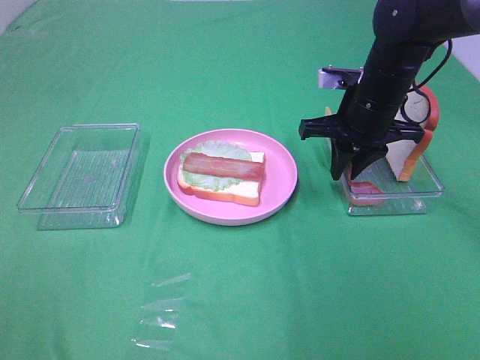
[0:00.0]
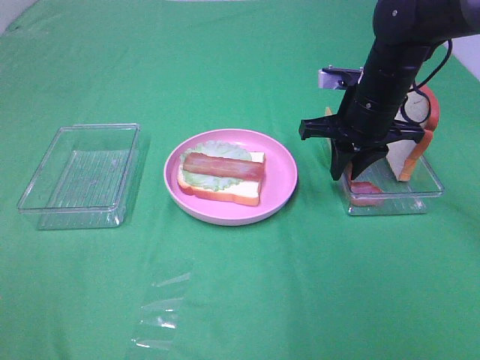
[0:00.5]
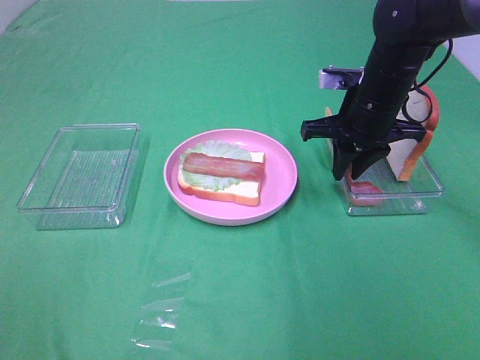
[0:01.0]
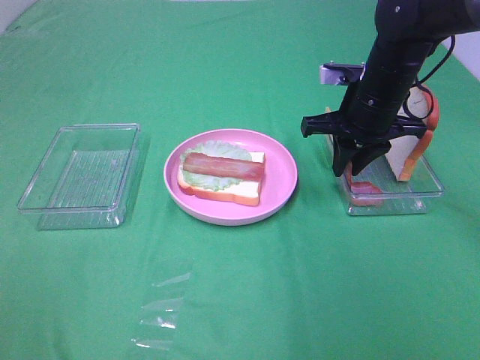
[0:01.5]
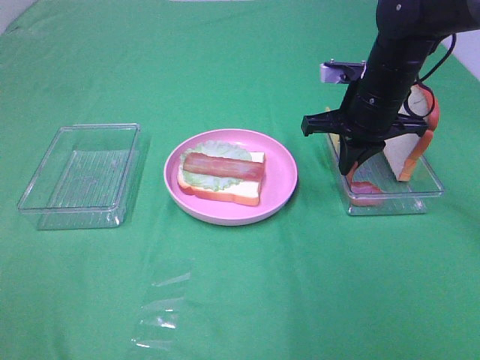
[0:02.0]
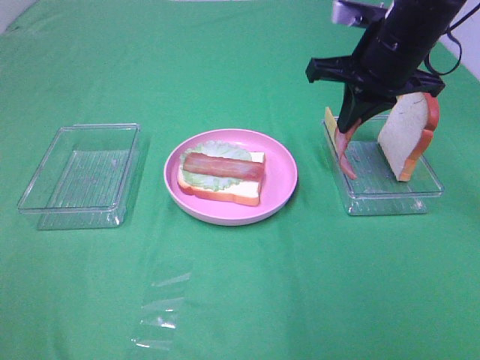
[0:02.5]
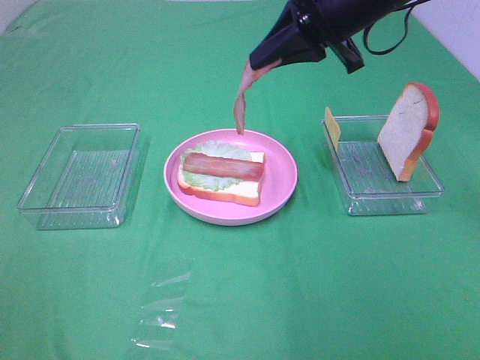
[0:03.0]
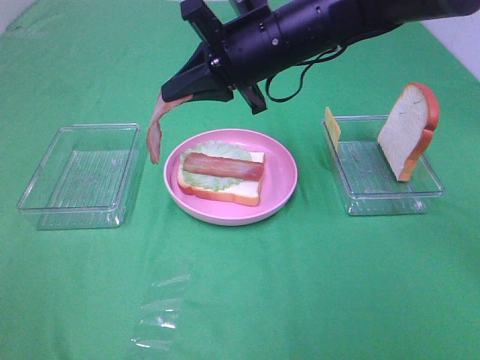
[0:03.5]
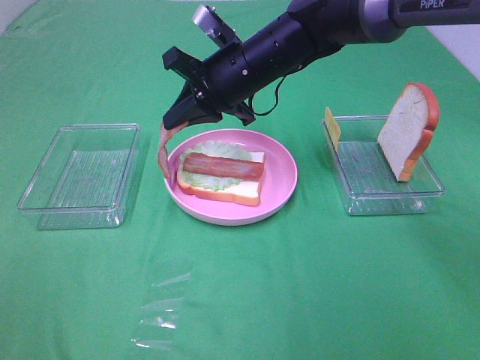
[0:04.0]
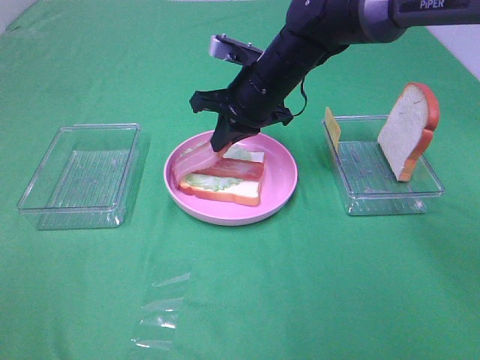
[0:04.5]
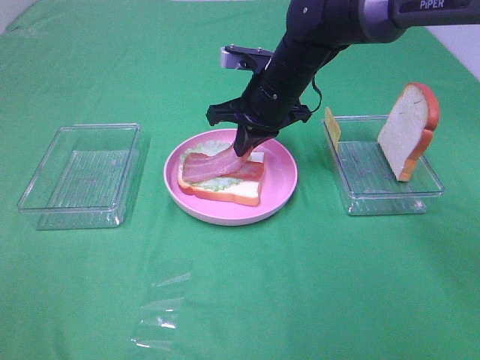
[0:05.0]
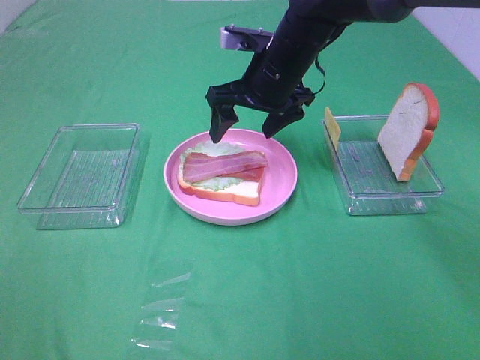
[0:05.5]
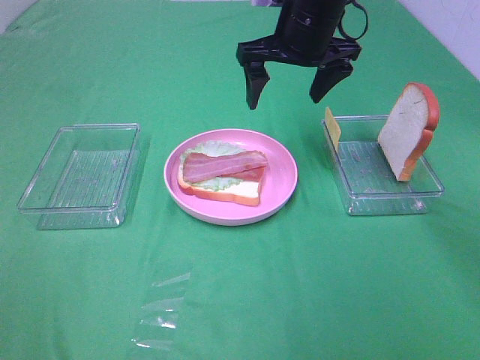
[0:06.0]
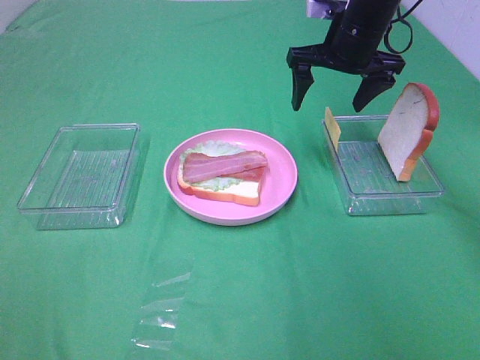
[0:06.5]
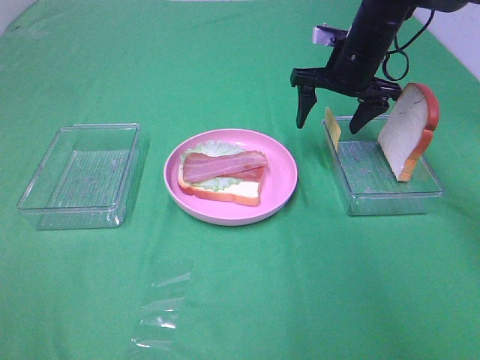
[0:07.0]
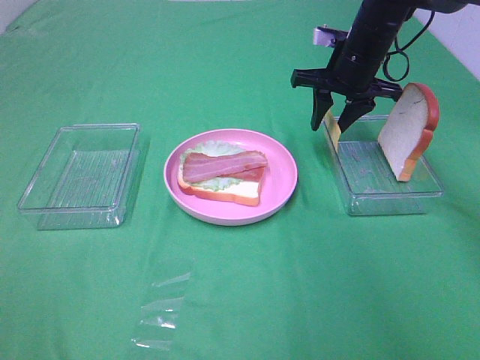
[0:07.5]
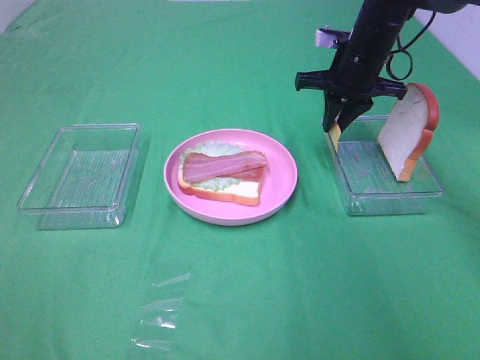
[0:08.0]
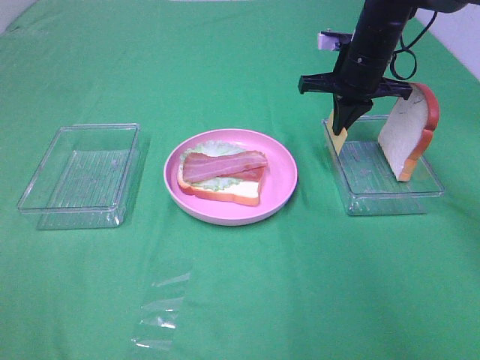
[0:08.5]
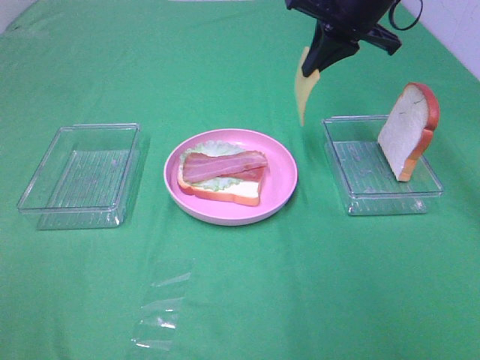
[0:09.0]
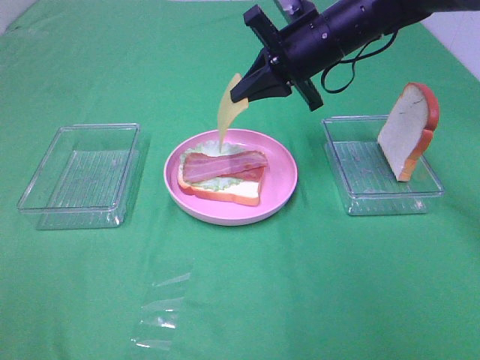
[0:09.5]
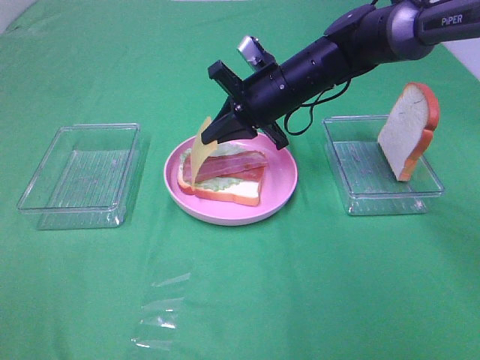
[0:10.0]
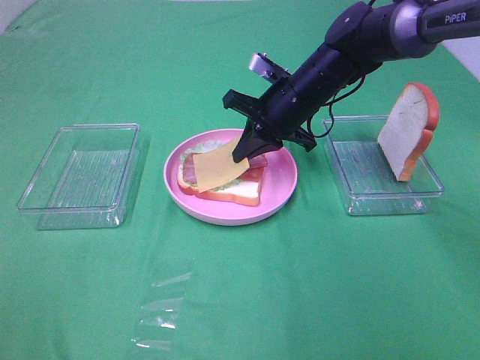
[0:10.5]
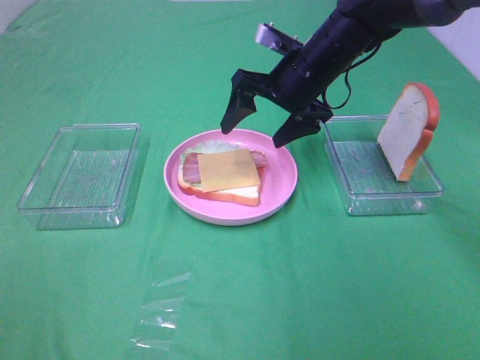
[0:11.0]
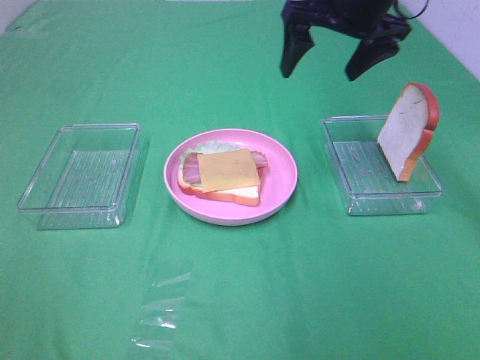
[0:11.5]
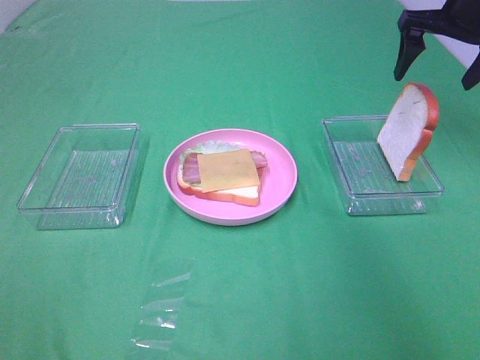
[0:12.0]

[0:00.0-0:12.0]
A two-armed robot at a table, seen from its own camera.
Task of the whole recording: Make sandwiches.
Step, 0:02.0 to 0:05.5: Right hand:place bacon on bacon.
Step, 0:06.0 to 0:08.0: Right hand:grab the cheese slice.
Step, 0:08.5 to 0:10.5: Right hand:place the cheese slice on top of the bacon.
0:00.0 to 0:02.0: Neither gripper changes place.
0:02.0 to 0:04.0: The right gripper shifts approximately 15 cm to the left.
0:04.0 to 0:06.0: The right gripper travels to the right and upward by approximately 10 cm, and opens up.
0:06.0 to 0:08.0: The right gripper is displaced to the right and downward by approximately 10 cm, and closes.
0:08.0 to 0:10.0: The right gripper shifts about 10 cm to the left and backward, and reaches roughly 10 cm upward, then returns.
0:10.0 to 0:12.0: The right gripper travels to the right and upward by about 25 cm, and opens its fingers.

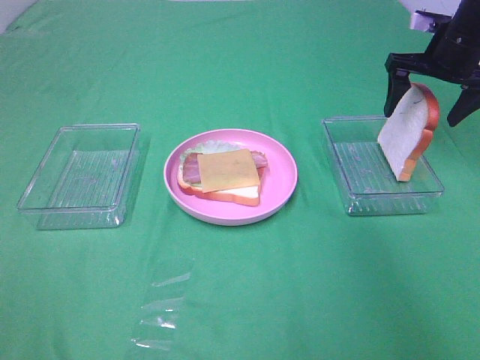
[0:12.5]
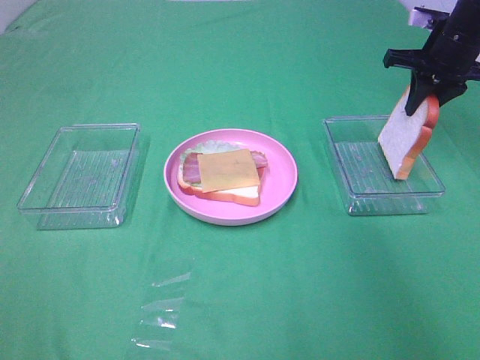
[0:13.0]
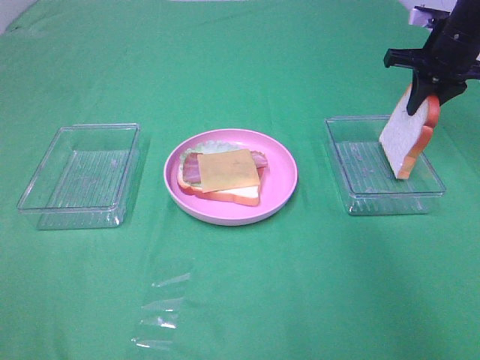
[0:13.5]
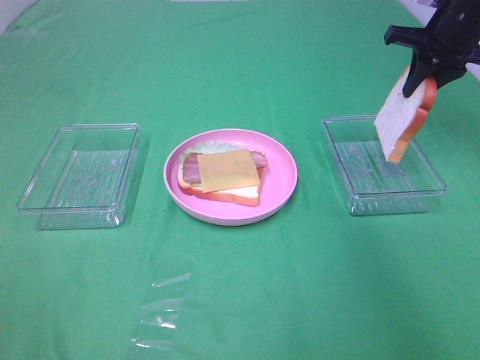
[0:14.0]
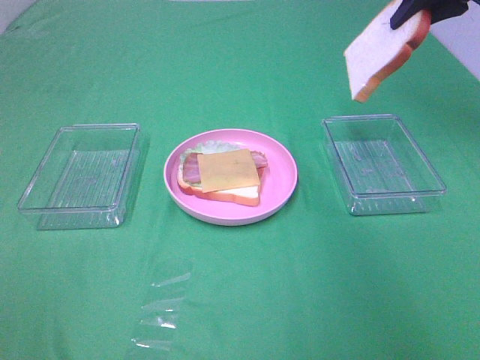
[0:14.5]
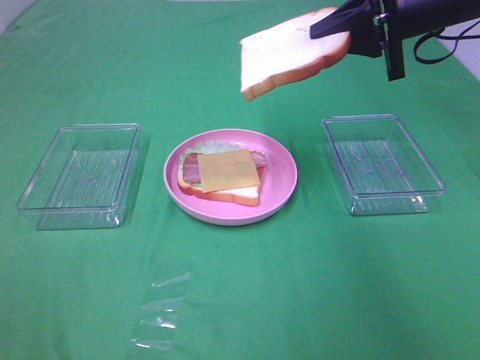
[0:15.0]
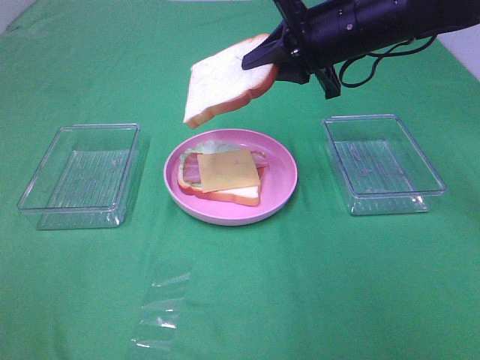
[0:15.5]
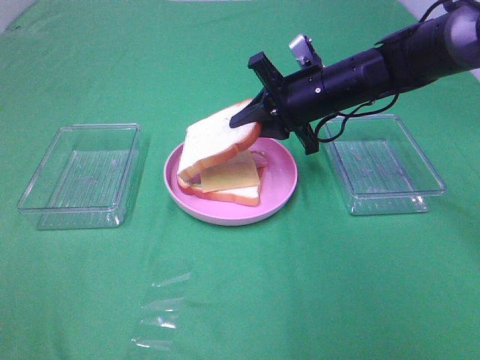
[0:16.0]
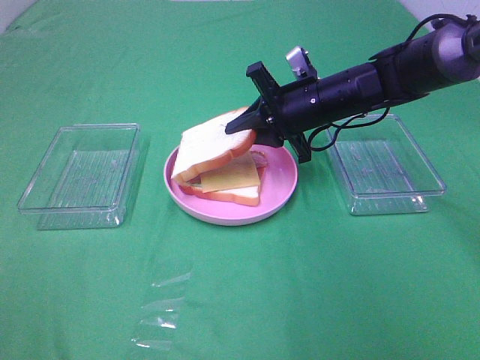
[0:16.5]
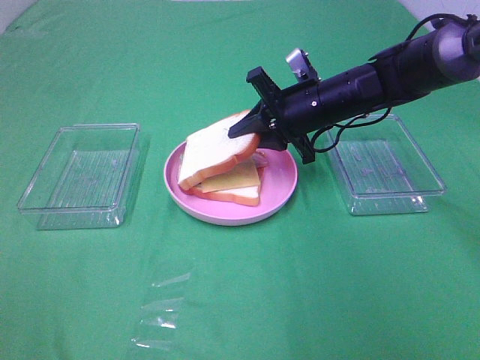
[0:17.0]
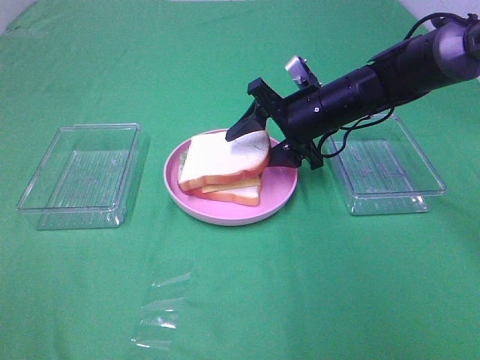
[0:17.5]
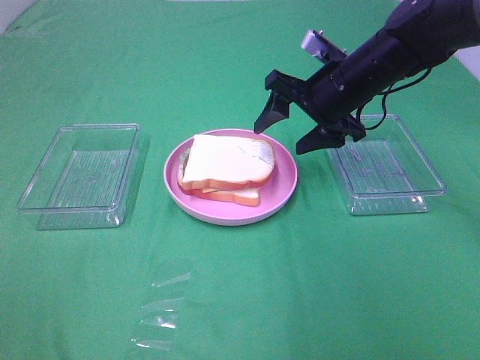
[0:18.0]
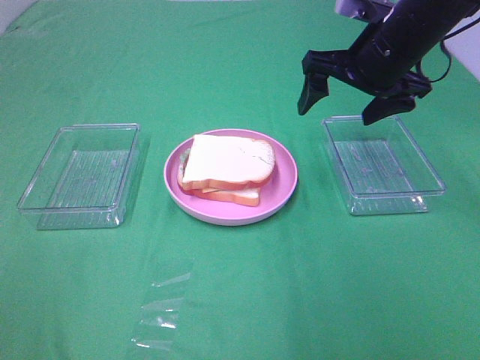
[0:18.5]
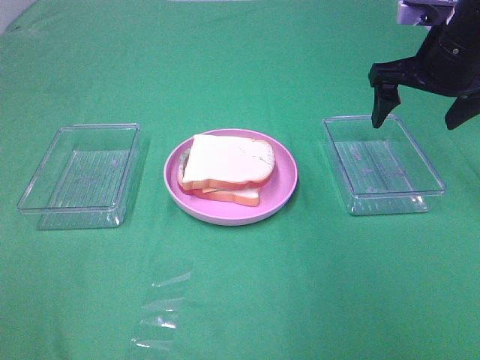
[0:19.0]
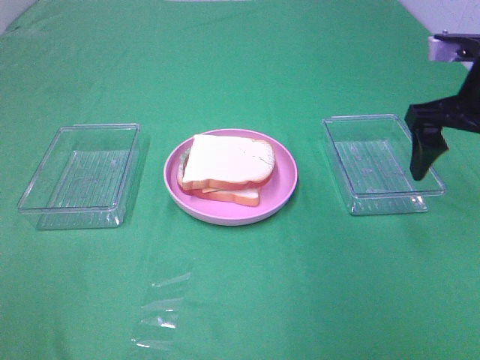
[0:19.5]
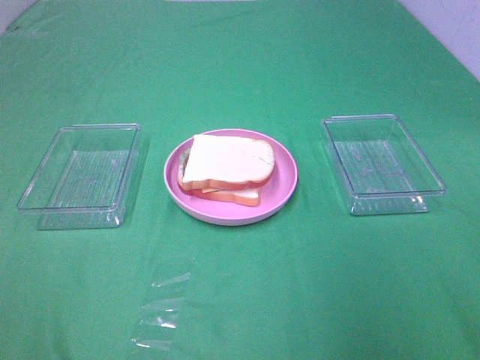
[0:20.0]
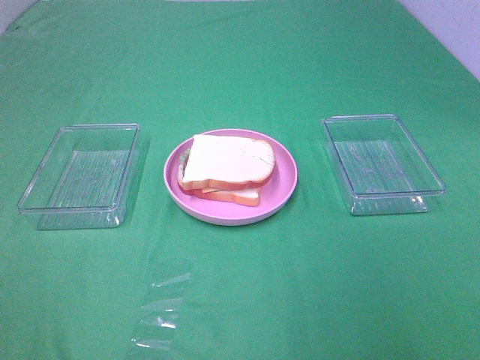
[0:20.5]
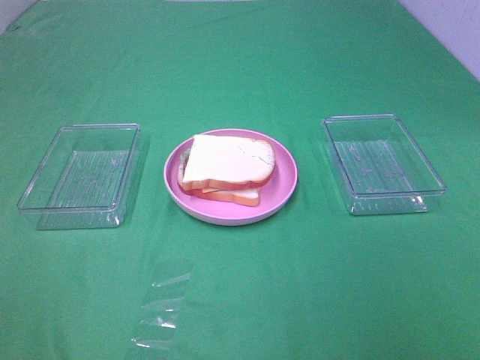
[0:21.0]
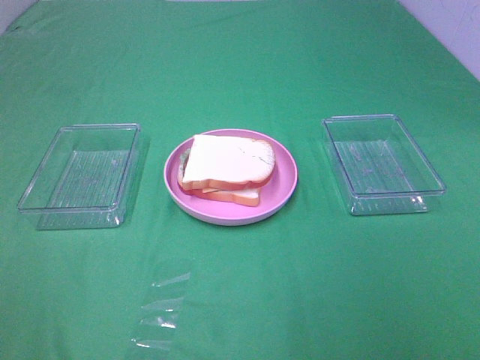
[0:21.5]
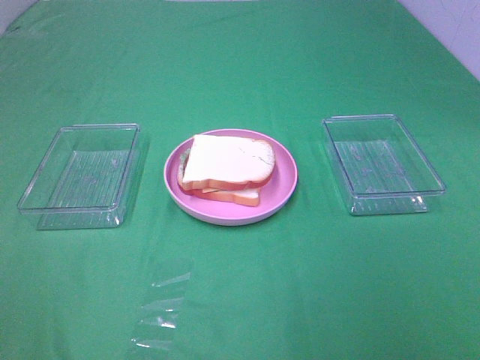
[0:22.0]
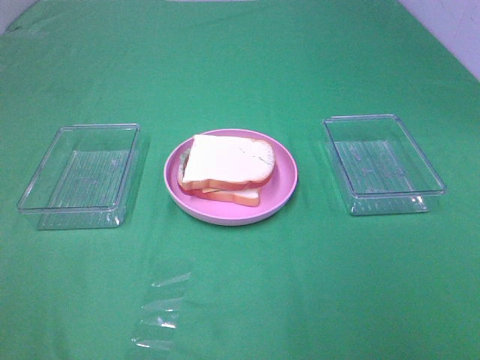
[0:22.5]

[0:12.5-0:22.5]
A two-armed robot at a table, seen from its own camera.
Task of the whole recording: Make sandwiches.
Step, 0:13.5 to 0:17.5: Right hand:place the bread slice on the cheese slice.
0:12.5 to 0:14.5: The right gripper travels upward by some 10 cm, and closes.
0:14.5 to 0:16.5: The right gripper heads downward and to the left, covering roughly 25 cm.
0:16.5 to 0:18.5: The right gripper goes roughly 10 cm upward and to the right, and opens up.
0:18.5 to 0:20.5: The right gripper goes about 35 cm backward.

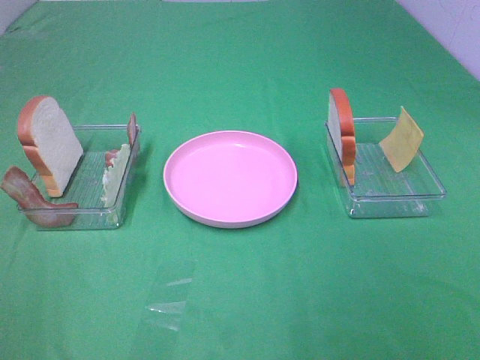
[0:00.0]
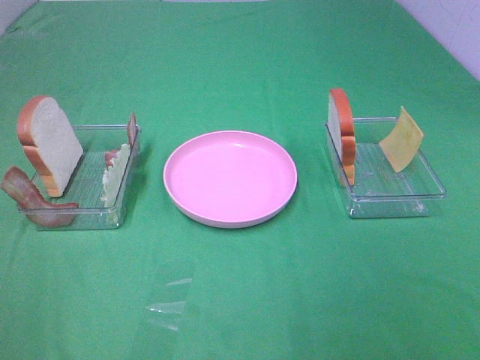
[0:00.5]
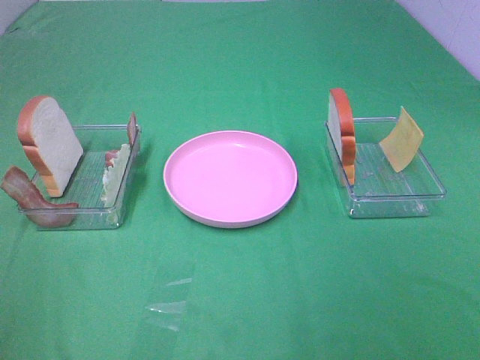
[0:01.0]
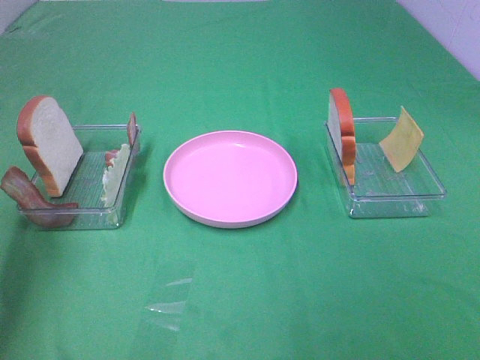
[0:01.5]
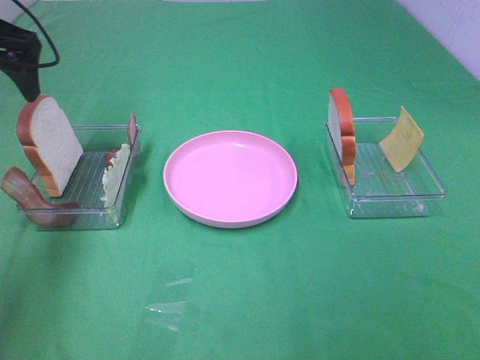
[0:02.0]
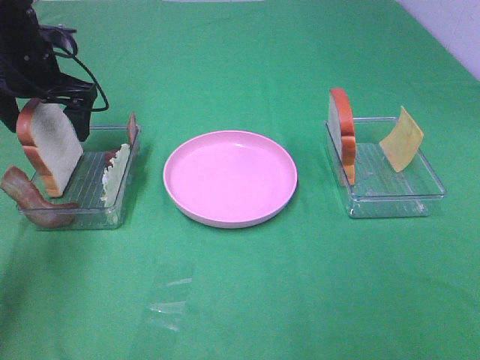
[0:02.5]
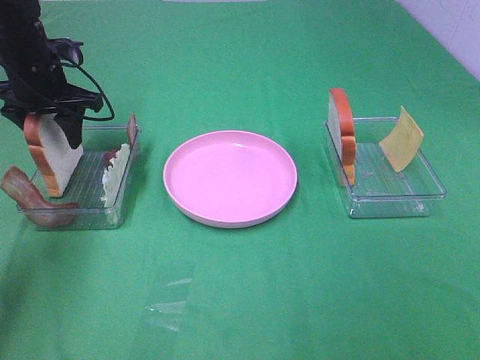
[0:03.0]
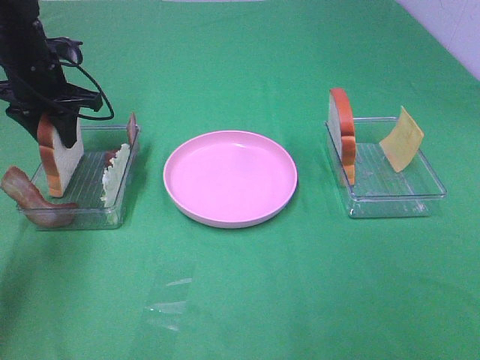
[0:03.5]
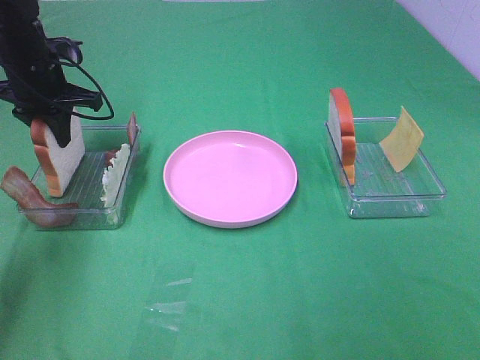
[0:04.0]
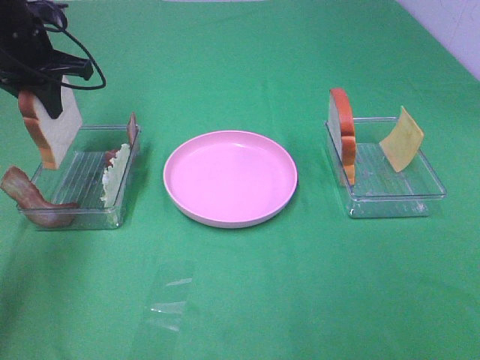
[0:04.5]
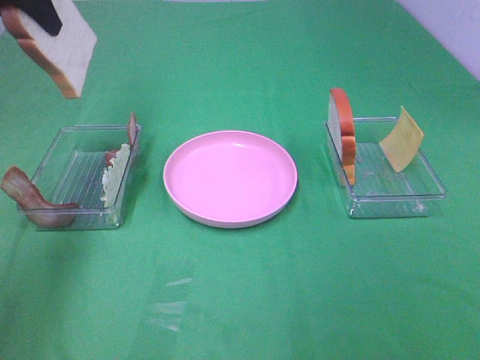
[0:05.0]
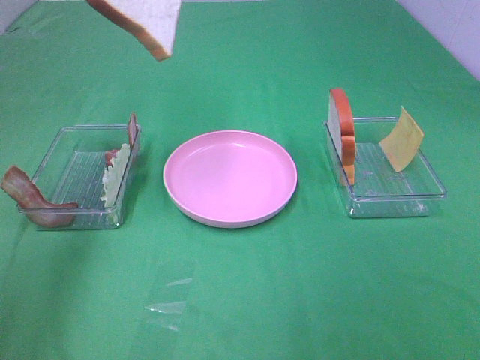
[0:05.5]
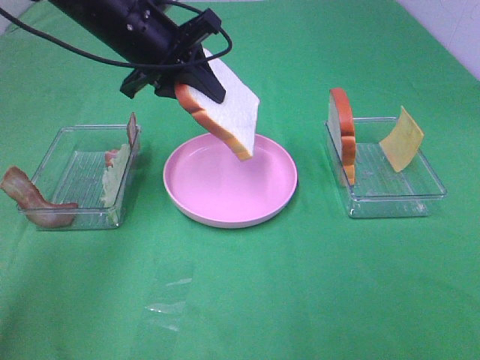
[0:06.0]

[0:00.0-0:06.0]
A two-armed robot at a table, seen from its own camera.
Task of the whole recording: Make sandwiches.
Step, 0:00.0 to 0:03.5: Left hand:grab the bread slice.
0:00.0 to 0:02.0: The left gripper is displaced forward by roughly 40 cm.
0:02.0 to 0:04.0: The left gripper shifts approximately 10 cm downward, and closes up.
0:04.0 to 0:06.0: The left gripper moves to the right, approximately 15 cm, and reaches roughly 20 cm upward, then returns.
